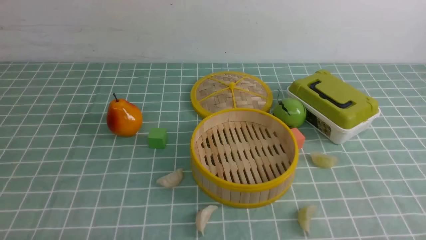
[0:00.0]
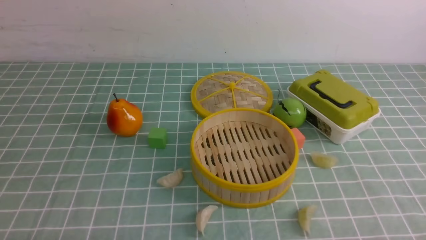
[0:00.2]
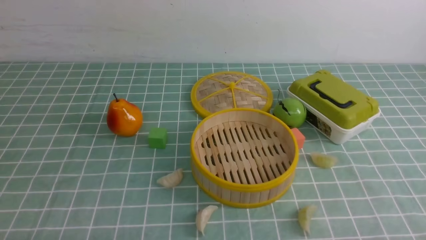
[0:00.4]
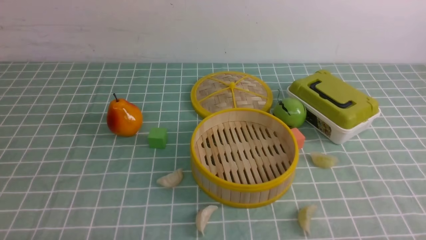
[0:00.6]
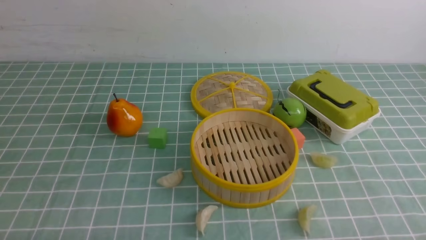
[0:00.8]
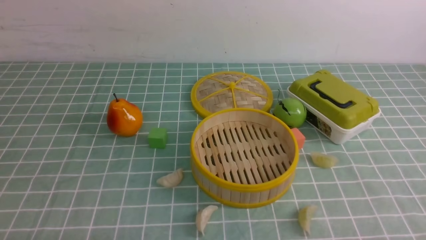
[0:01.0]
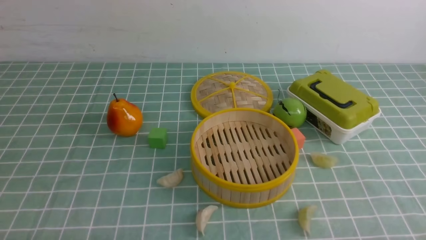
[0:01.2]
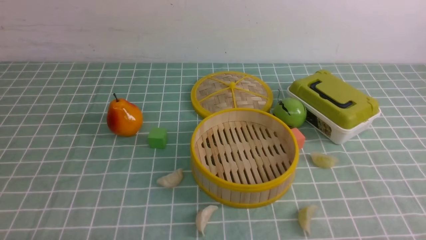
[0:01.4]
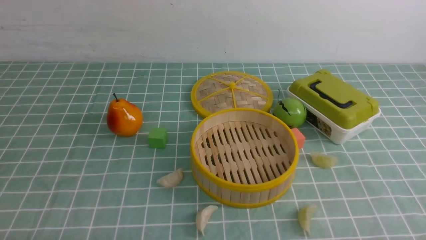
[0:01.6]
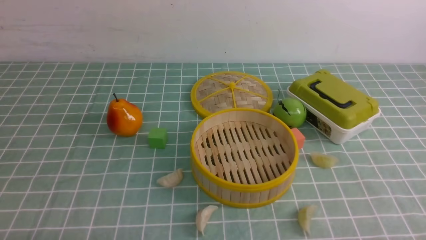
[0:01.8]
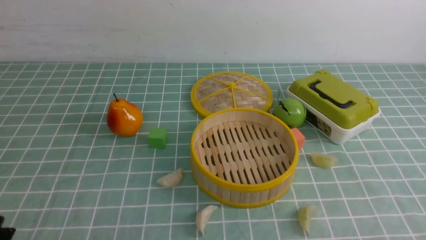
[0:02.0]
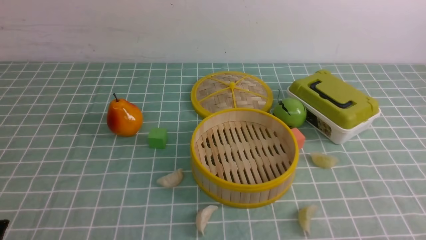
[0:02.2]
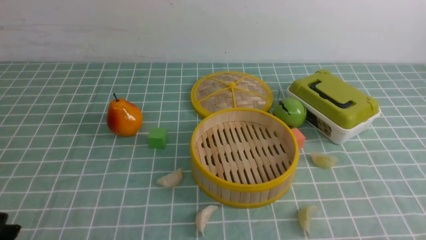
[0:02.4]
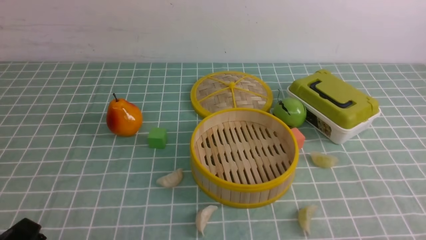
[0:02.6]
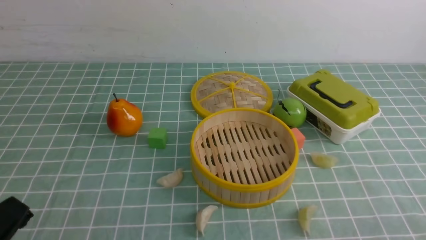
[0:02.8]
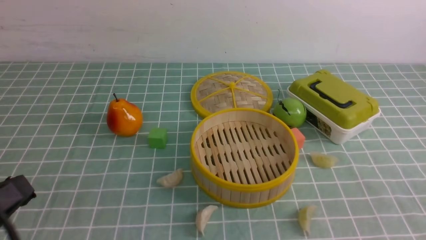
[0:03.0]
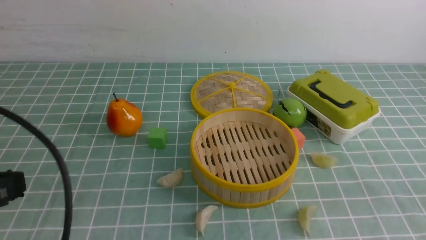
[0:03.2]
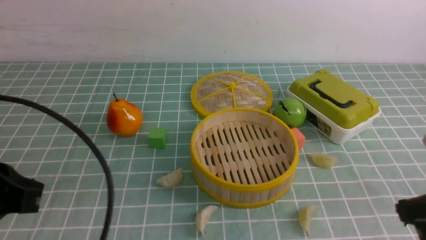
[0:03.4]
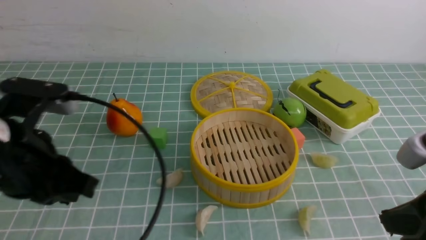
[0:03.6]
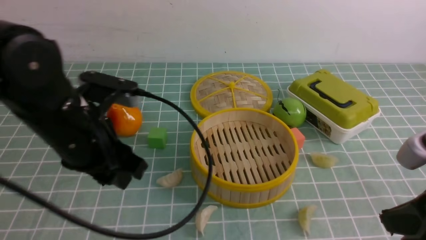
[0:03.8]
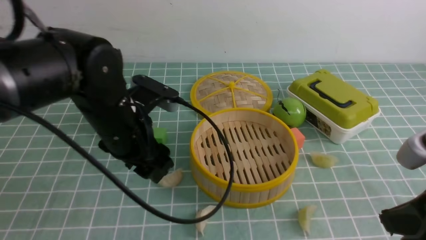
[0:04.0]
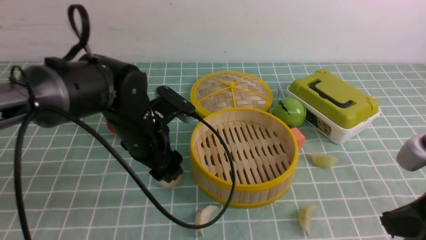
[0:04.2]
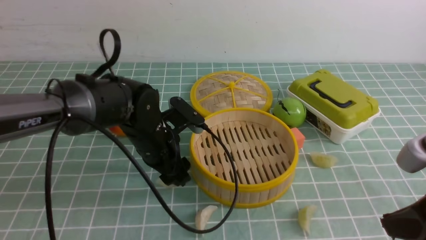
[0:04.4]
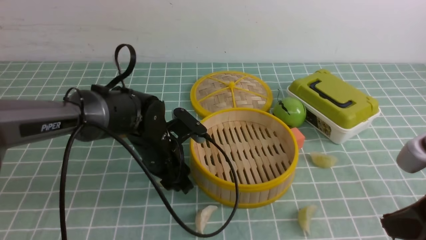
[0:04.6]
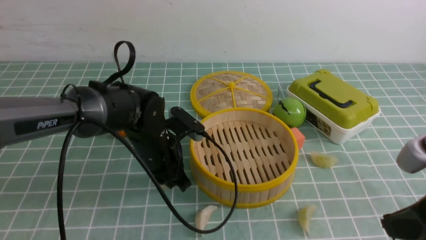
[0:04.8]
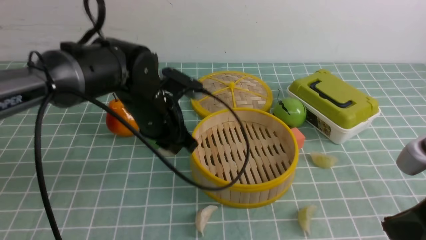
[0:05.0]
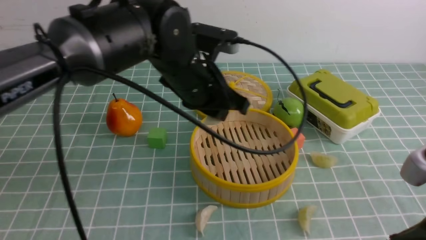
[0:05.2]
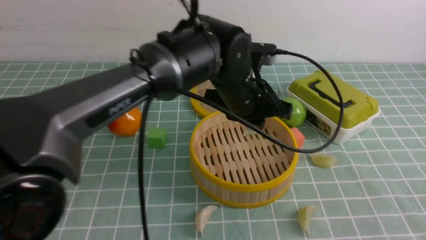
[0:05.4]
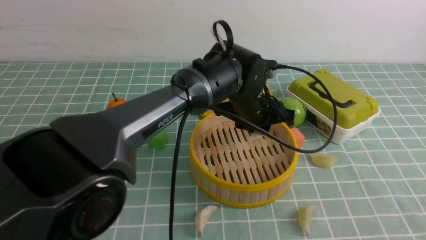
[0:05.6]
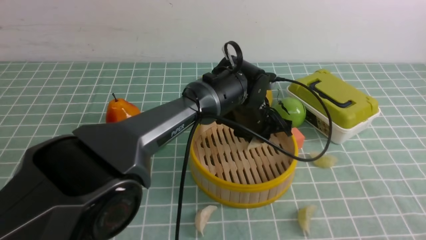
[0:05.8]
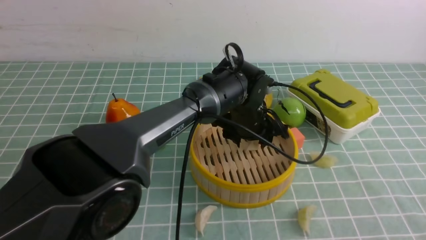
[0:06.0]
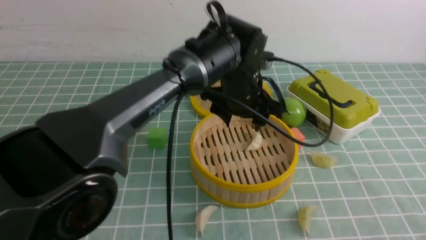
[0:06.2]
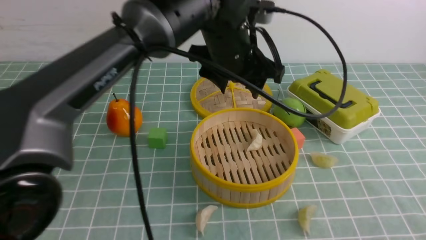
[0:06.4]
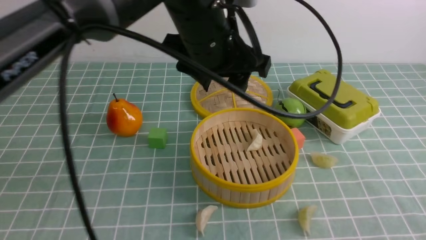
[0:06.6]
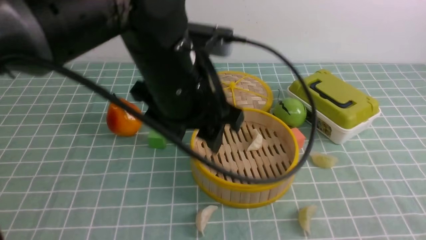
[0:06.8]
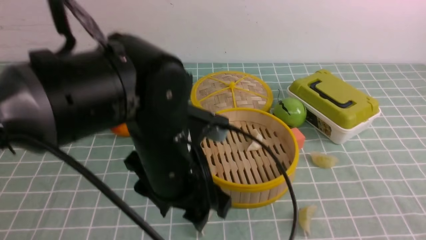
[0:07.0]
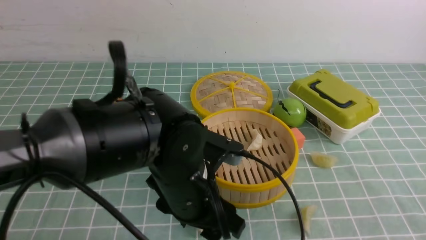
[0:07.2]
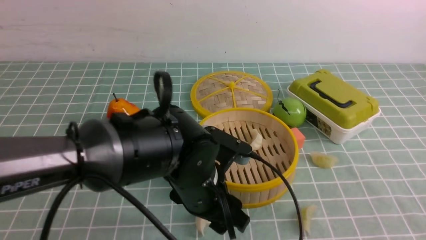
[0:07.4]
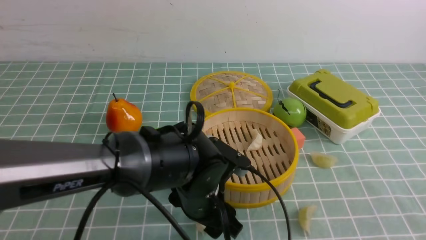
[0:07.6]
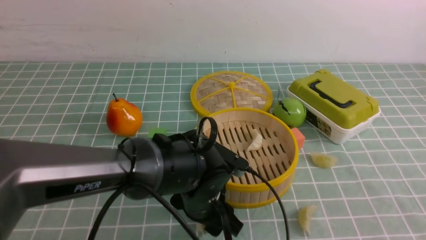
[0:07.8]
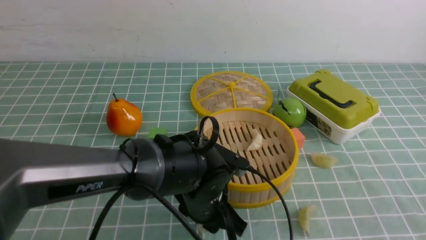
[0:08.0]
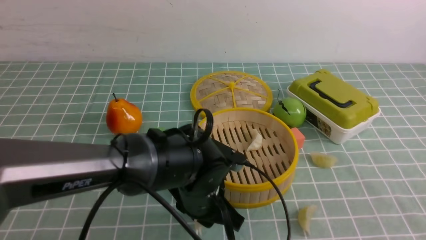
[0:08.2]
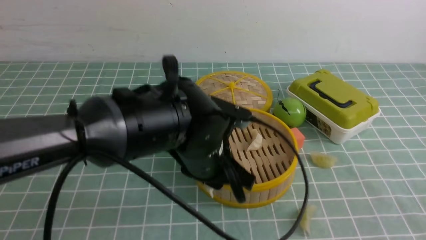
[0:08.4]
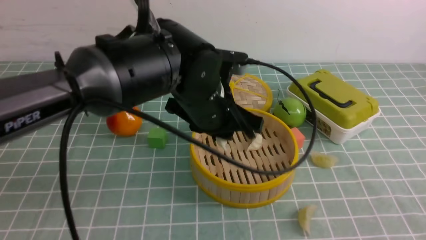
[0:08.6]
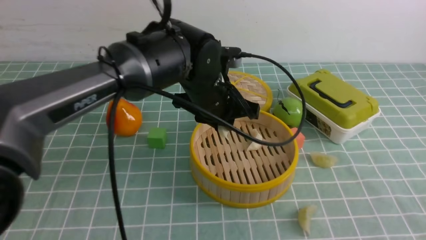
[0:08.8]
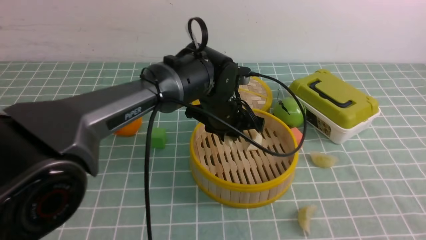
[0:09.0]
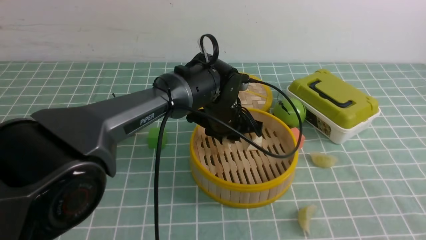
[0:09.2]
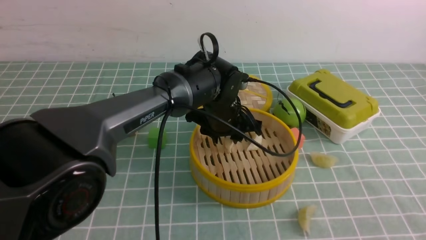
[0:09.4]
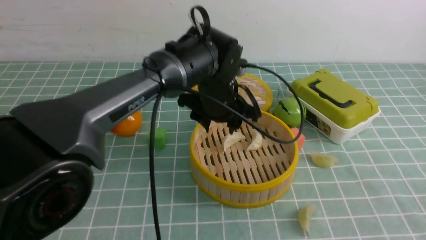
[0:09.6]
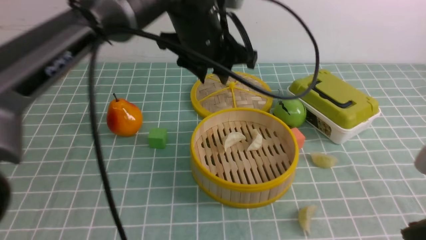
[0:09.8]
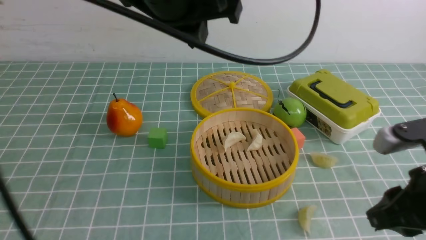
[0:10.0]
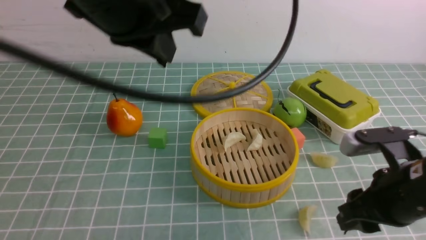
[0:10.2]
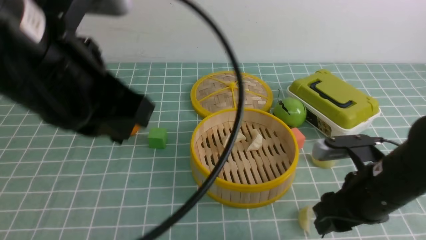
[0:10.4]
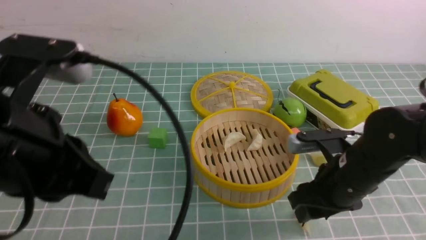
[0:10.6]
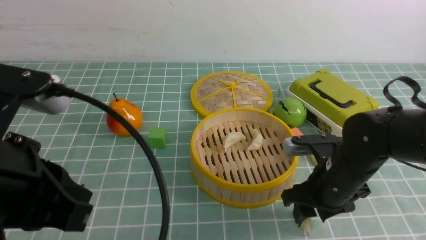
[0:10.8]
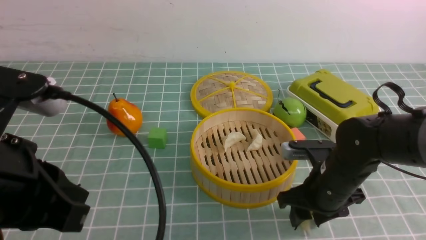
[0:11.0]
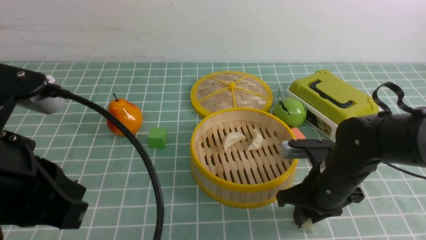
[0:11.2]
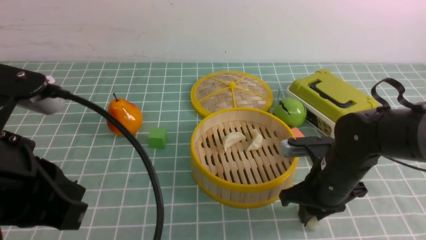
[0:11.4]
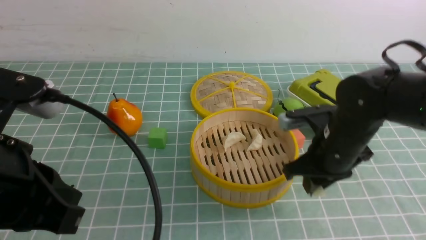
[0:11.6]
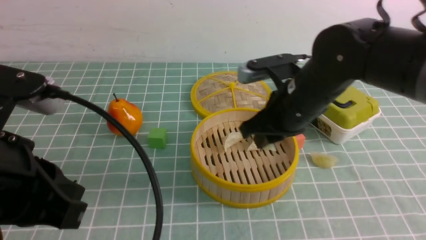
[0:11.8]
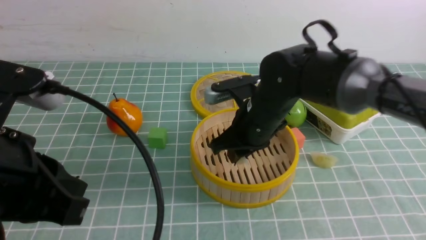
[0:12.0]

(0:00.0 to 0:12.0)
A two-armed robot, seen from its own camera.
Task of the whole recording: put the dumplings into the steamer on the table with the blue tablecloth.
Step, 0:00.0 - 0:05.0: use the left arm to grab a dumpling.
Step, 0:05.2 - 0:06.2: use the left arm to put the dumpling into the steamer.
Step, 0:06.4 - 0:08.2: use the left arm to grab a dumpling.
Step, 0:08.4 - 0:09.6: use the left arm to put the dumpling into the steamer.
Step, 0:09.8 - 0:11.6: use the right arm to grab a dumpling.
0:01.6 - 0:03.0: The left gripper moves upward, approximately 15 cm, and closes its fingers.
0:03.0 - 0:04.4: The right gripper goes approximately 5 cm forward; the left gripper goes about 30 cm forward and to the right, and opens.
0:04.4 - 0:06.0: The left gripper travels to the right by some 15 cm, and closes, then opens again; the right gripper shifts about 10 cm backward.
0:06.0 - 0:07.6: The left gripper goes about 15 cm backward and to the left, and goes upward and returns, some 15 cm each way.
0:07.6 - 0:09.0: The left gripper moves forward, approximately 15 cm, and closes.
0:09.0 - 0:10.4: The left gripper is displaced backward, upward and to the left by some 30 cm, and closes up; the right gripper heads forward and downward, covering about 20 cm, and opens its fingers.
0:10.4 - 0:12.0: The left gripper heads backward and downward, covering about 10 cm, while the right gripper moves to the left and forward, approximately 15 cm, and closes up.

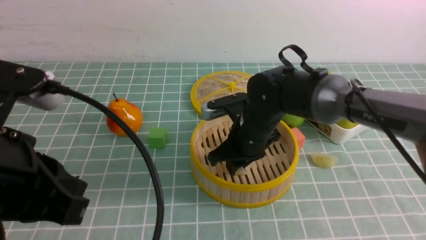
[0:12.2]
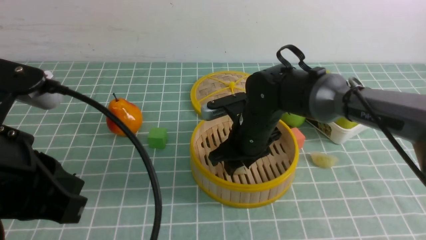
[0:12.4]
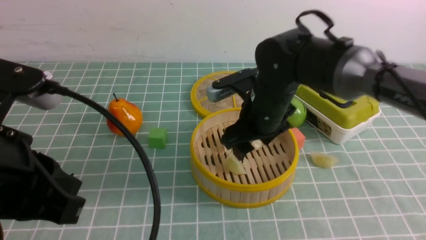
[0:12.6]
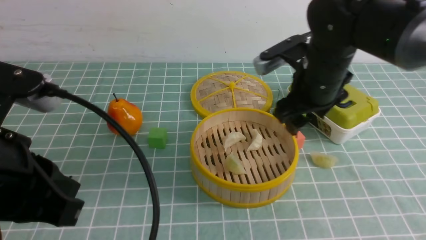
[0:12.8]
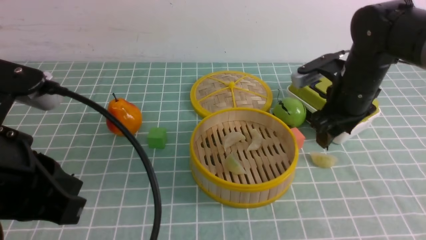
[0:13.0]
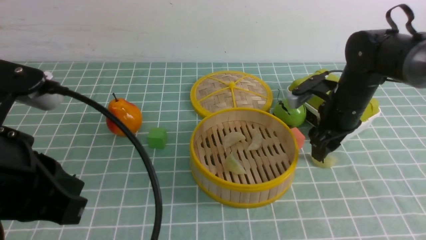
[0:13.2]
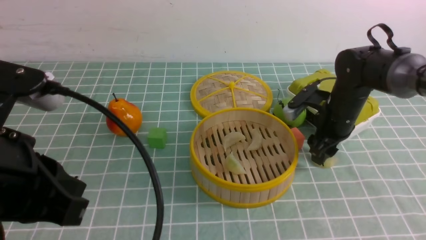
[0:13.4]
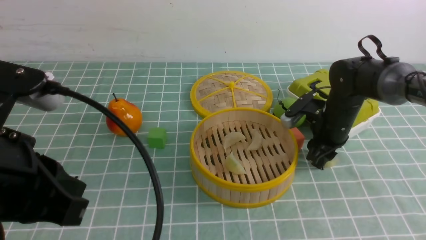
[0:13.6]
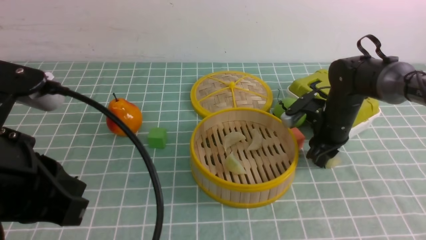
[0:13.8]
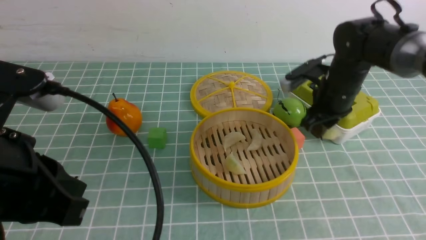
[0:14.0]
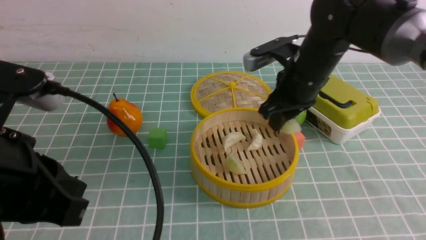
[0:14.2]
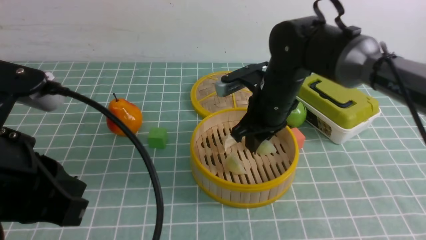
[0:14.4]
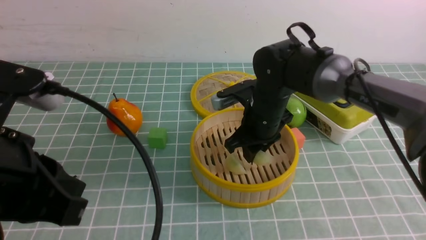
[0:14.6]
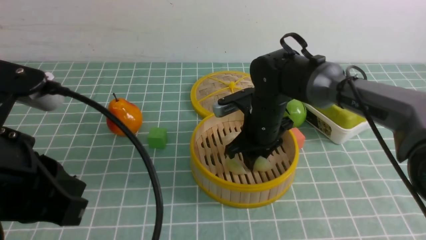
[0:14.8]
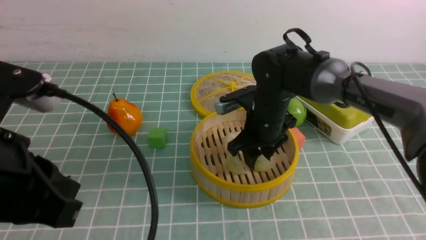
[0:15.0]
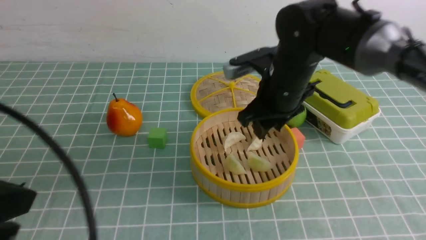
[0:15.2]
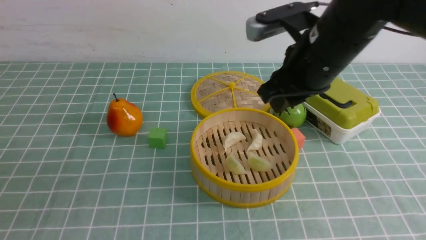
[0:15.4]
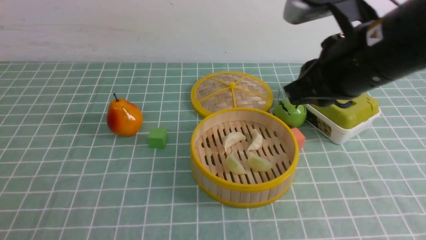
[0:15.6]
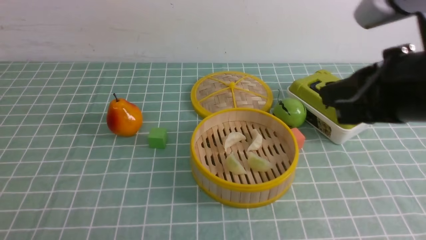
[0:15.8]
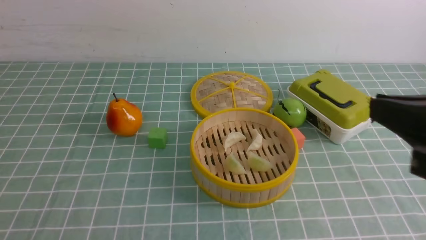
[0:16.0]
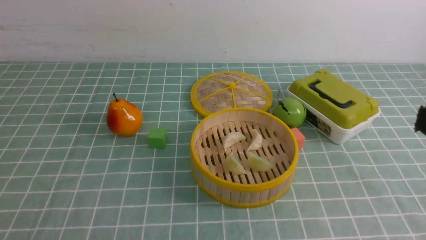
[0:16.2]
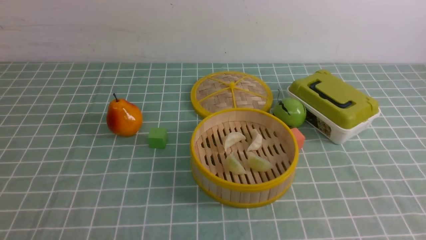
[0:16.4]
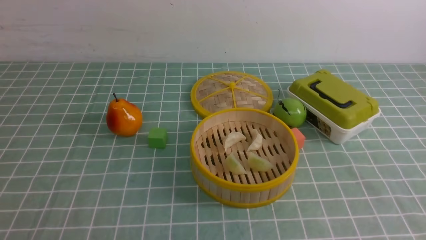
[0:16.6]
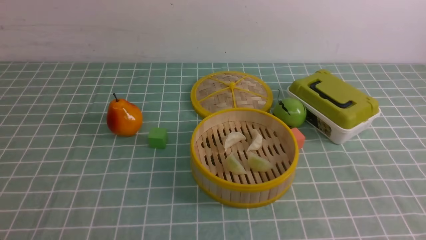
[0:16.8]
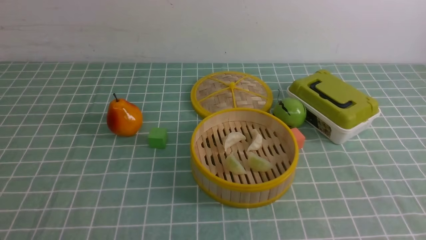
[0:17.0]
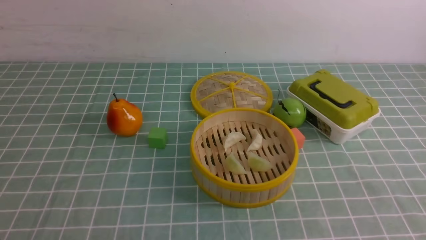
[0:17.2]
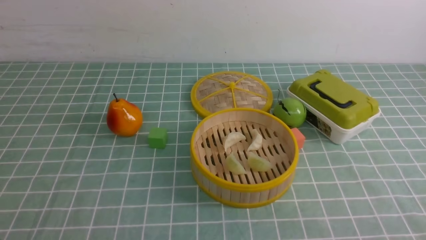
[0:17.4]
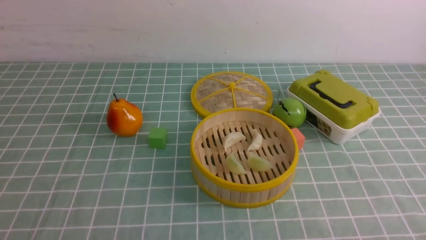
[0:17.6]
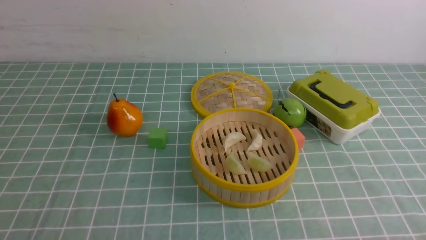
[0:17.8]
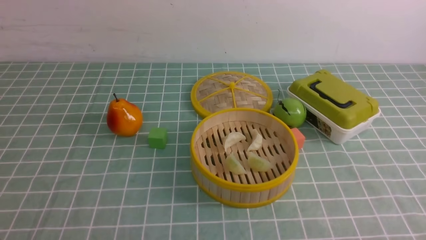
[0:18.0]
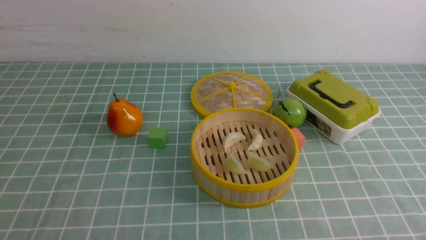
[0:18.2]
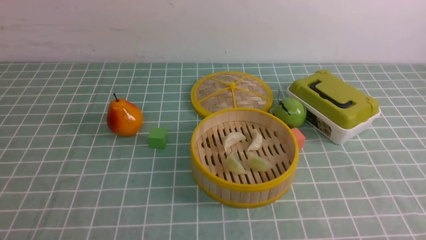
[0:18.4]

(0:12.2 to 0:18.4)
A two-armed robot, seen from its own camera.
Task of the whole recording: put the dumplings into the steamer on the table with the blue tablecloth.
Step, 0:12.6 - 0:13.8: use the right arm to grab a dumpling.
Step, 0:14.2 - 0:15.2: use the right arm to put the dumpling into the steamer.
0:12.2 - 0:13.8: The right gripper goes about 15 cm to the right and forward, and opens, then closes once more.
0:13.8 - 0:15.4: The left gripper goes roughly 10 cm backward and to the left. The right gripper swings up and down, some 15 cm each way, with 2 reversals.
0:15.4 - 0:16.8: The right gripper is displaced backward and to the right by approximately 25 cm, and closes up. The left gripper moves downward, some 5 cm.
